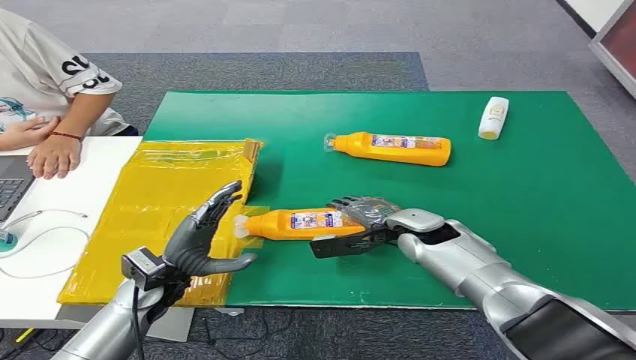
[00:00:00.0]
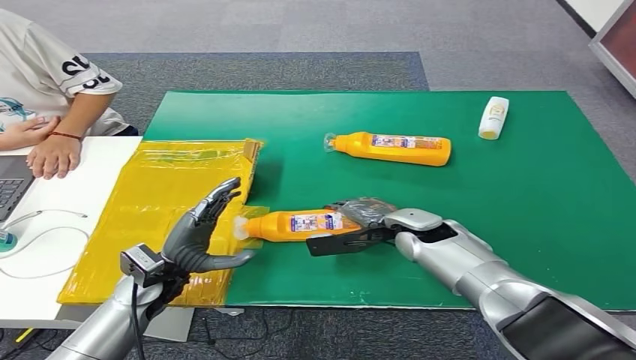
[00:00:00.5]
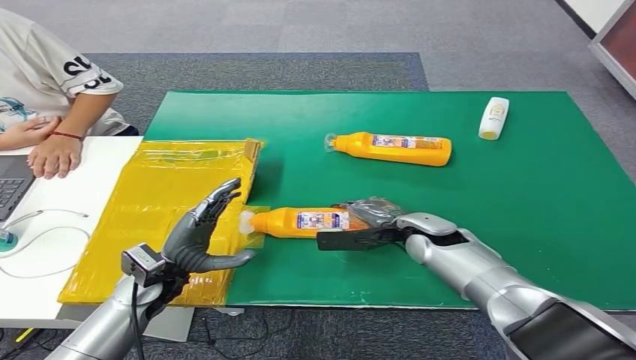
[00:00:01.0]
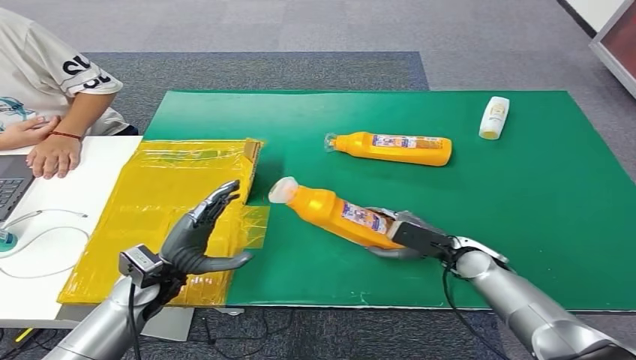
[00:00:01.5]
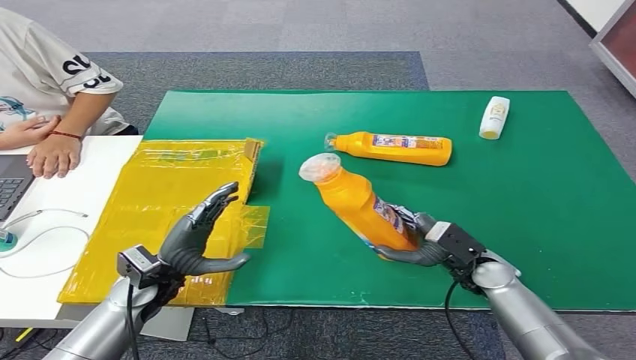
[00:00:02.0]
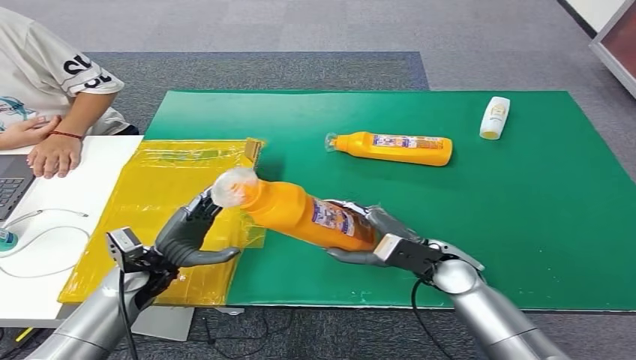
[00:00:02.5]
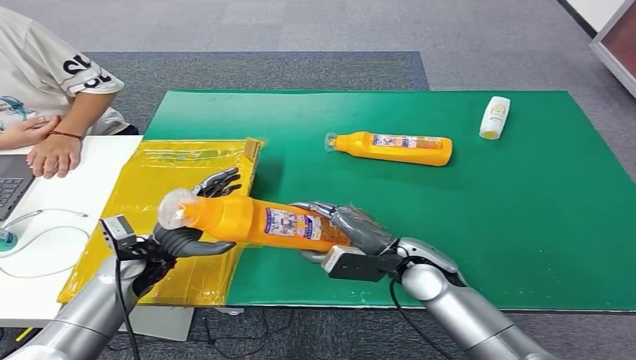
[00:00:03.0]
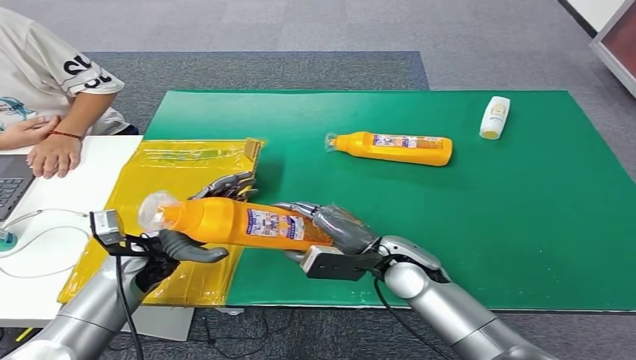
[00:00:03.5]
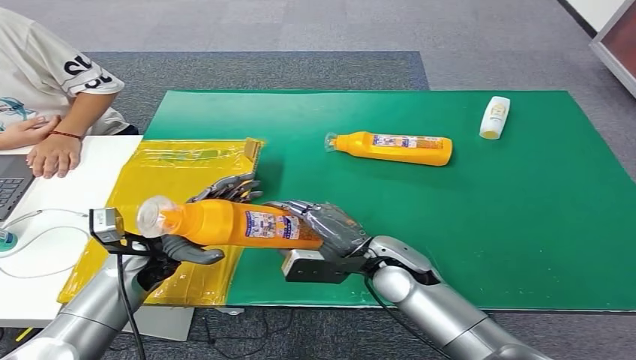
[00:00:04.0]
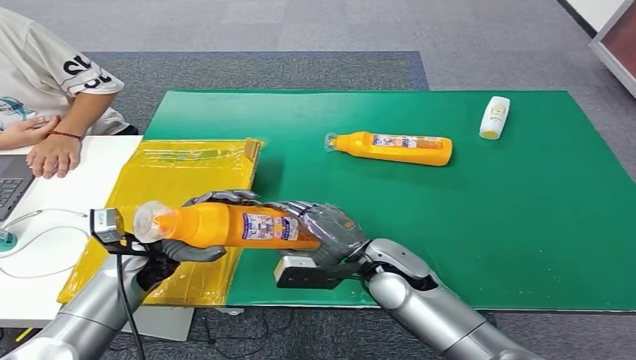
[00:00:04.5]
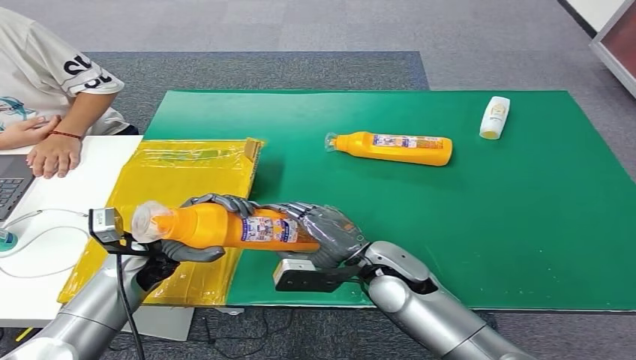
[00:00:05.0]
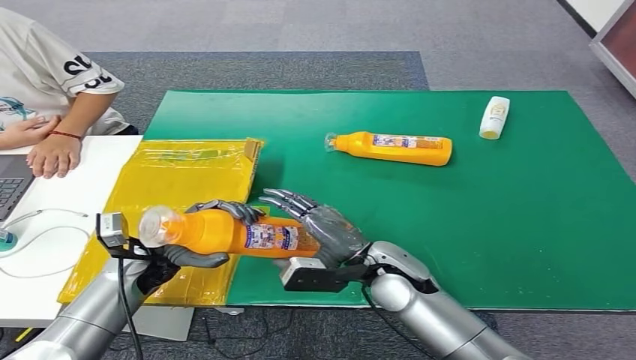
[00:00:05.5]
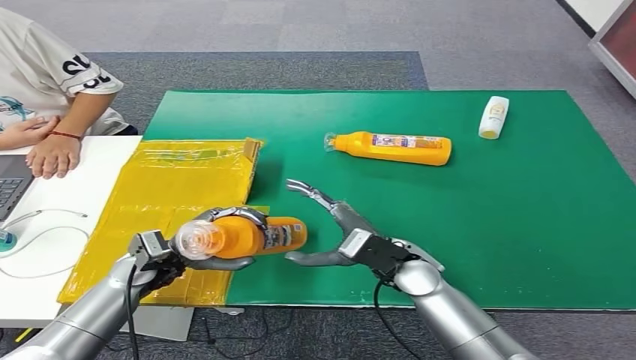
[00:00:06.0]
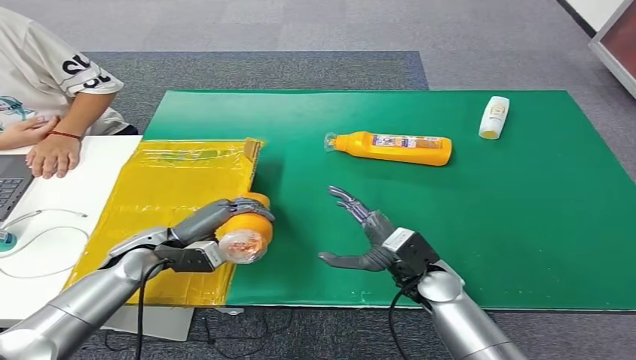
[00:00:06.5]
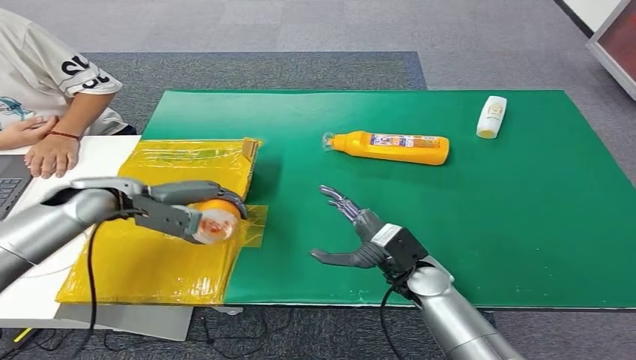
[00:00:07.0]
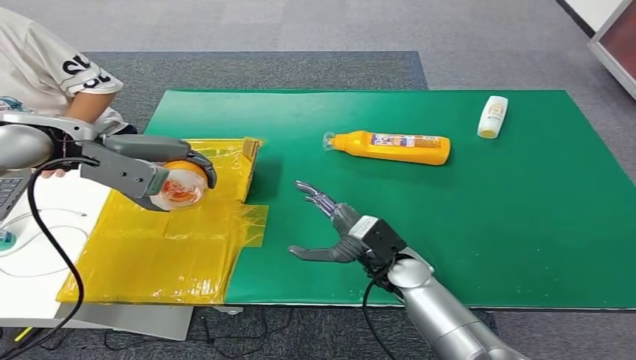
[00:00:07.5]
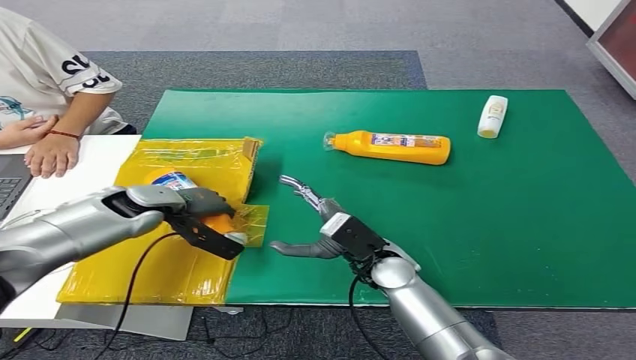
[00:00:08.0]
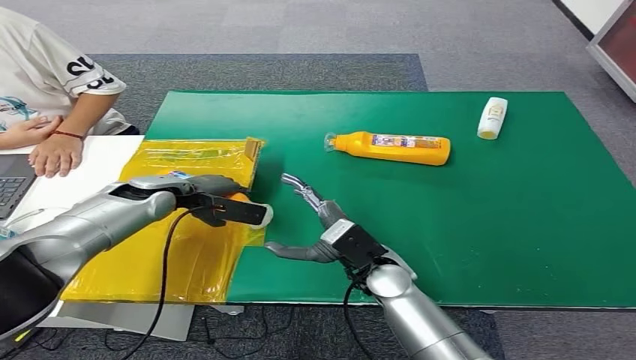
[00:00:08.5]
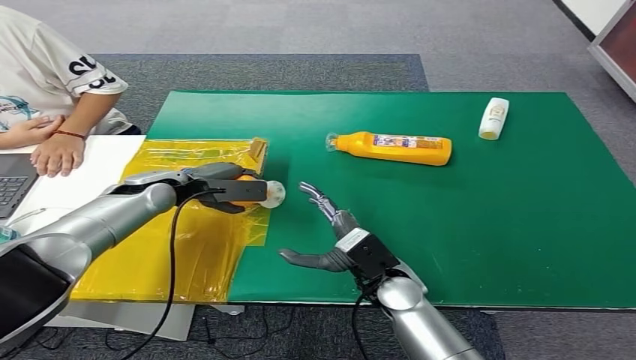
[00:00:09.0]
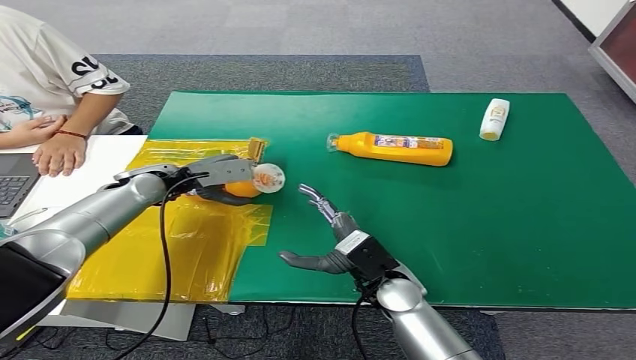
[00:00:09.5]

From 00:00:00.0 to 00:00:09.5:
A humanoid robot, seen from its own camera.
Step, from 00:00:00.0 to 00:00:01.5: Pick up the bottle from the table.
From 00:00:02.0 to 00:00:04.0: The right hand shifts about 15 cm to the left and upward.
From 00:00:04.0 to 00:00:05.5: The hands make only small movements.
From 00:00:05.5 to 00:00:07.5: The left hand heads upward, covering approximately 25 cm.

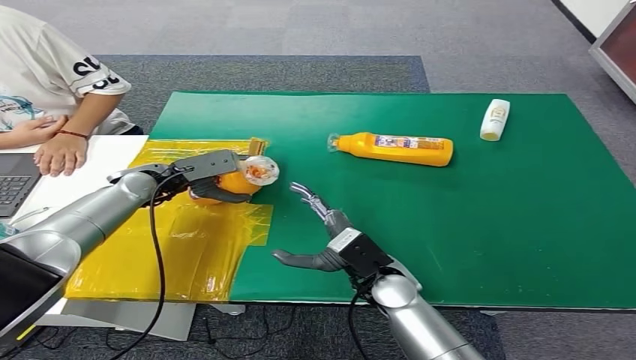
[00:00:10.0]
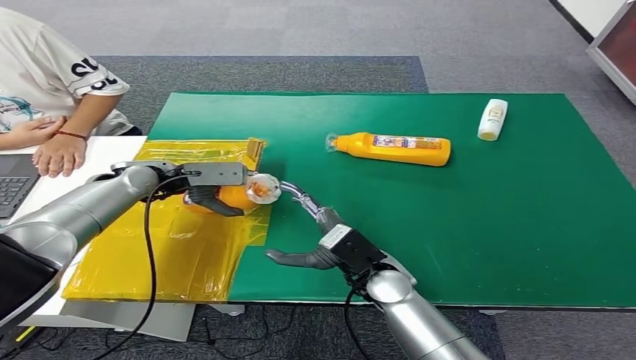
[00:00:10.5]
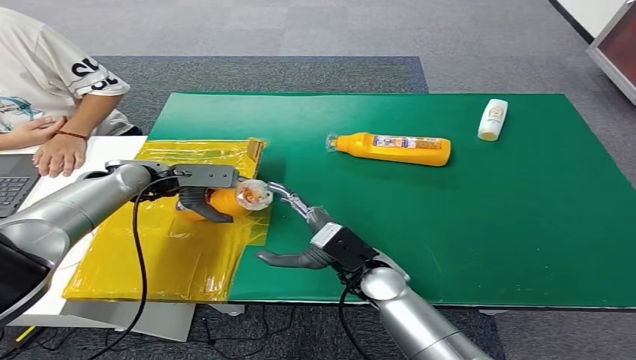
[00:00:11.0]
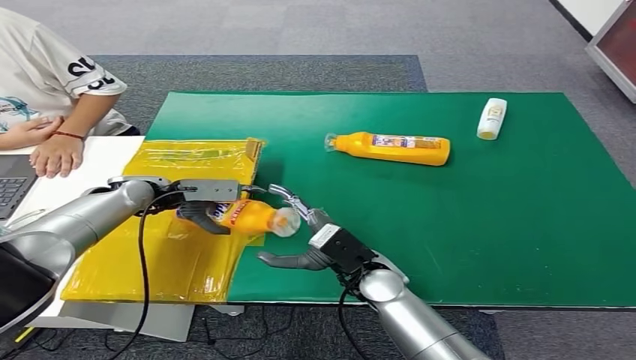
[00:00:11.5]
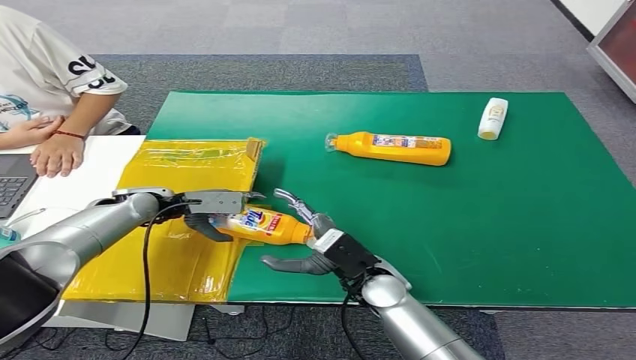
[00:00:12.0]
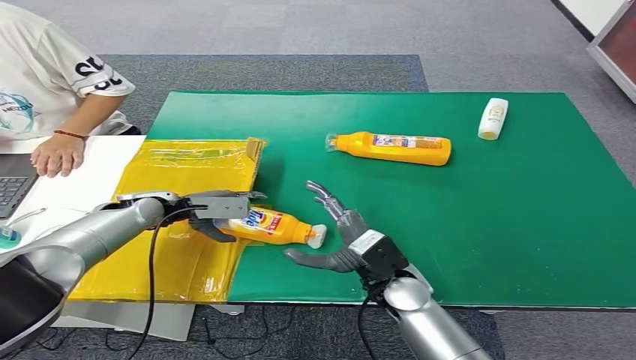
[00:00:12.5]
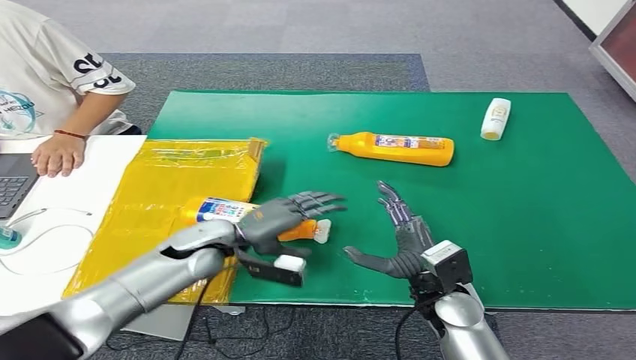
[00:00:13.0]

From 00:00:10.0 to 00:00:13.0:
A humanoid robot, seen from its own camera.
Step, from 00:00:10.0 to 00:00:13.0: Turn the bottle to the front side.
